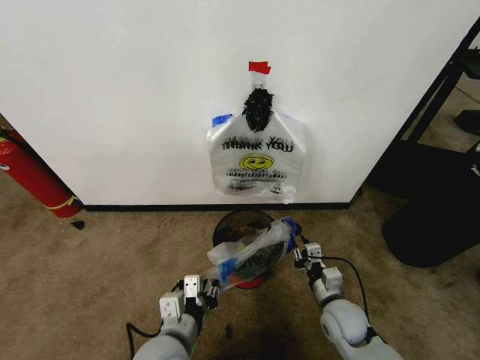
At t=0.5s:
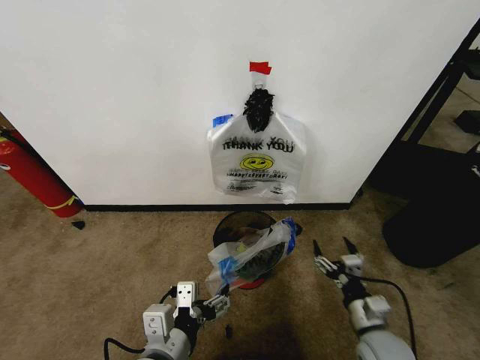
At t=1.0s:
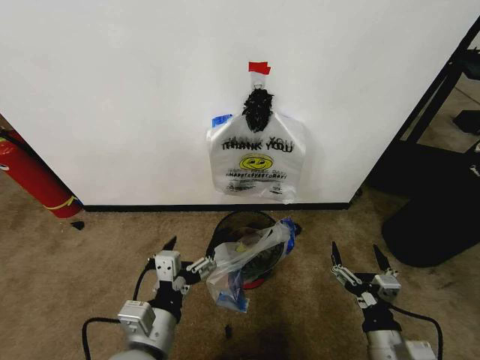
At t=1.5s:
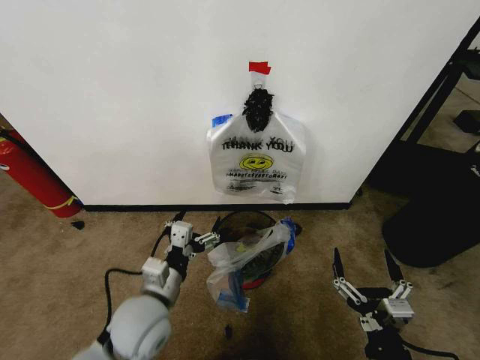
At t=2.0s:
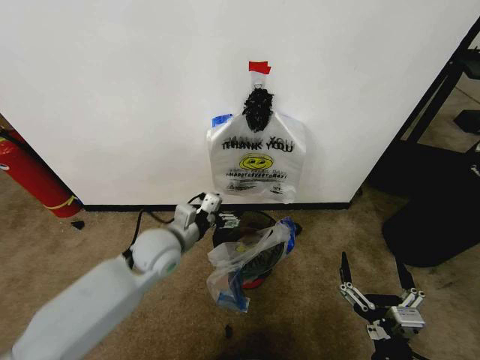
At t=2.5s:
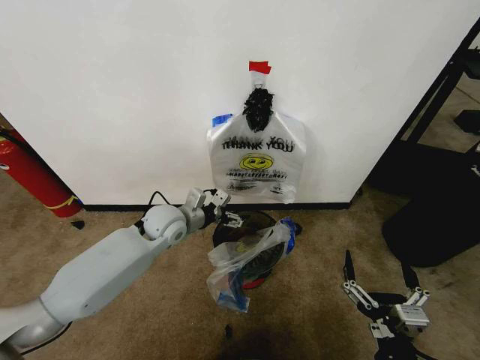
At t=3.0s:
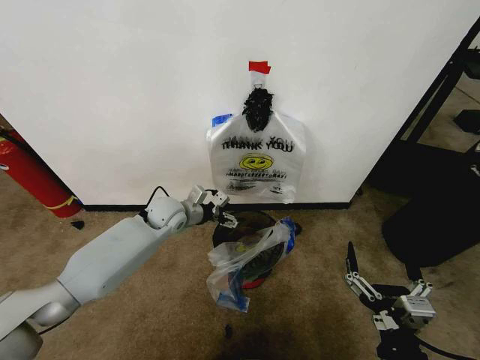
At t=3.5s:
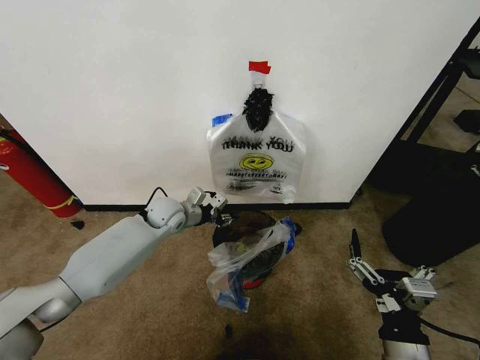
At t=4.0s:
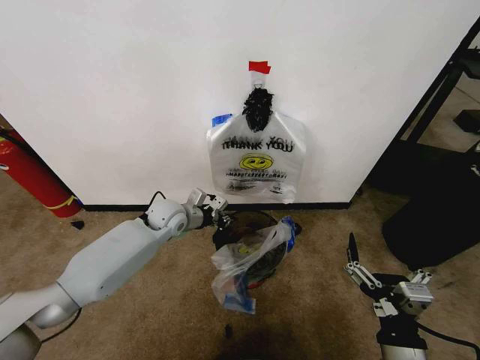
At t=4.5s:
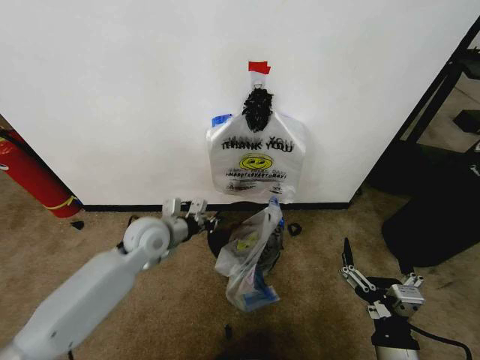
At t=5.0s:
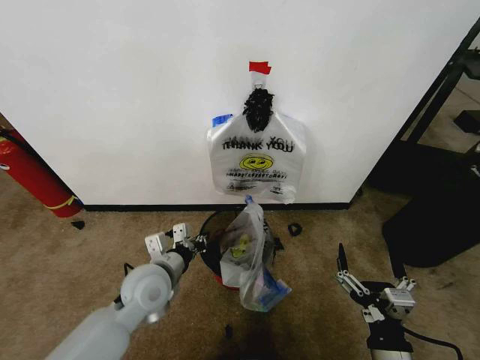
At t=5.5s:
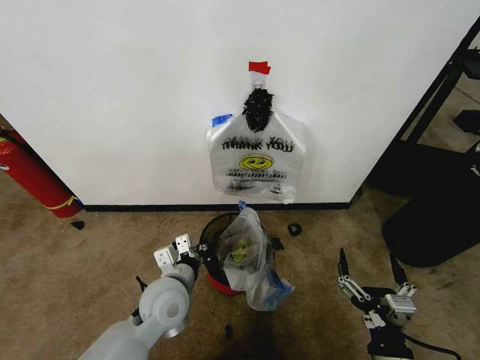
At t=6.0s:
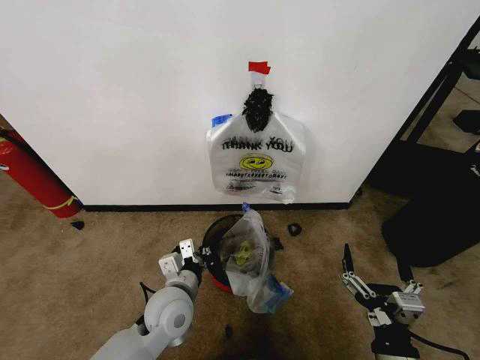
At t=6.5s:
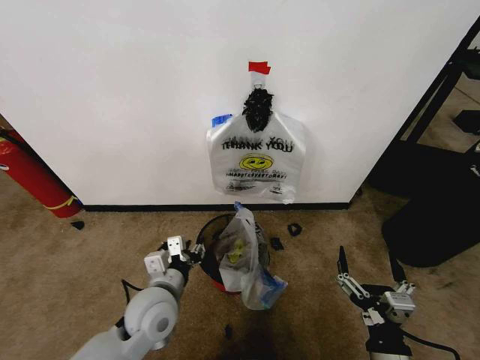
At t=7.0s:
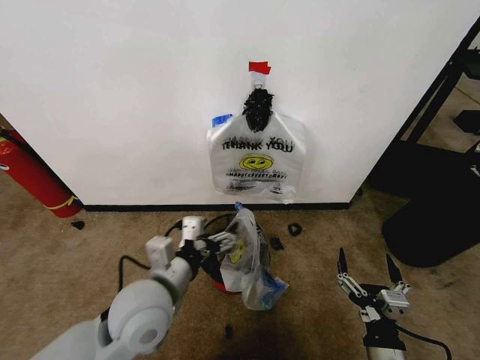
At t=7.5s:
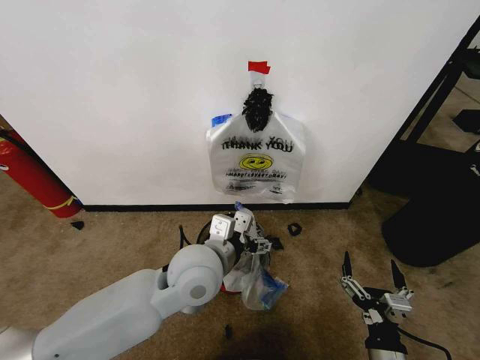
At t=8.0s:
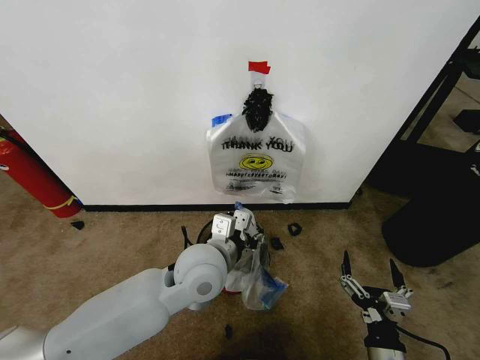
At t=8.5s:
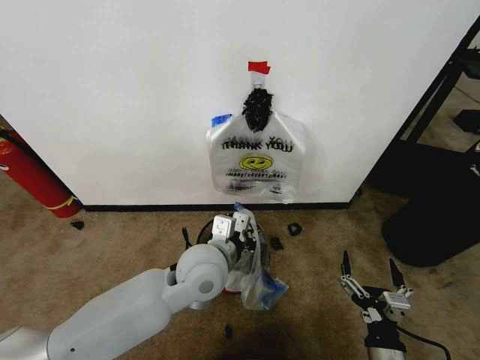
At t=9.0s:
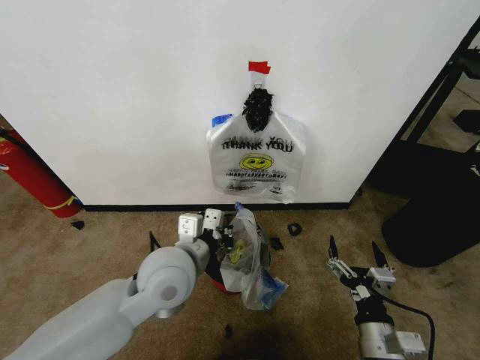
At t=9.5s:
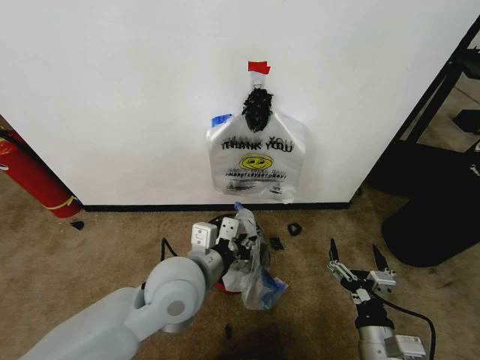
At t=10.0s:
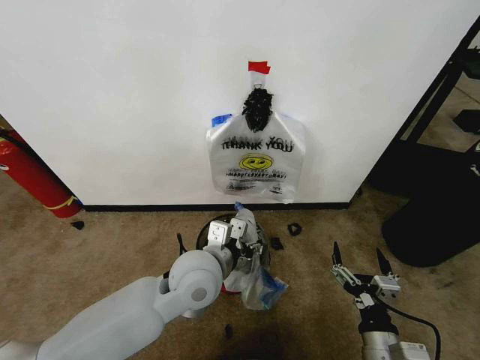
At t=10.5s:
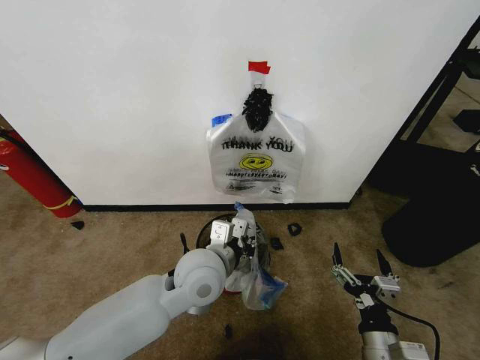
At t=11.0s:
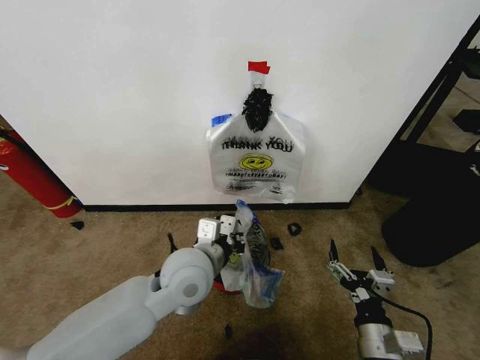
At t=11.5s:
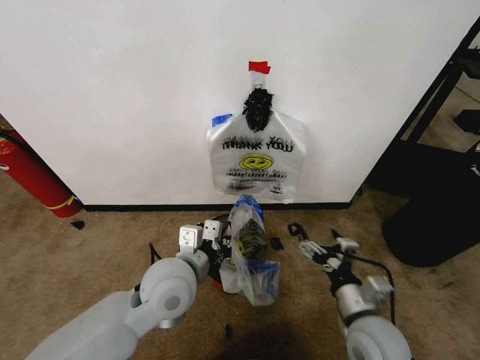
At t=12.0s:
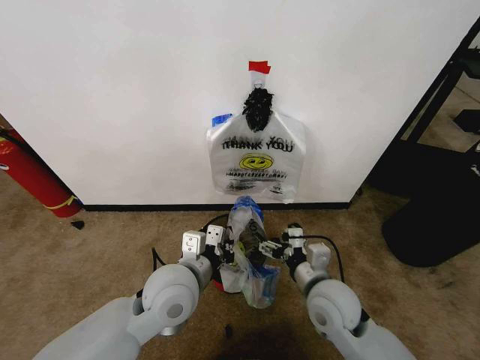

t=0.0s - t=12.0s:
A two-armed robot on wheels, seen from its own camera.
Task of the whole recording: Pick up the garbage bag from the wall and place it over the trash bin.
t=0.0s - t=2.0s: The left gripper travels forward by approximately 20 cm, and opens. Meanwhile the right gripper shifts some 20 cm backward and upward, and opens up.
t=2.0s - t=4.0s: The left gripper travels forward by some 15 cm, and closes its fingers.
t=4.0s - t=6.0s: The left gripper heads backward, covering about 20 cm.
t=6.0s - t=8.0s: The right gripper shifts roughly 5 cm downward; the left gripper goes some 15 cm upward and to the right, and opens up.
t=8.0s - t=10.0s: The left gripper closes, then reopens.
t=10.0s - t=12.0s: The right gripper travels forward and to the left by about 15 cm, while the left gripper closes up.

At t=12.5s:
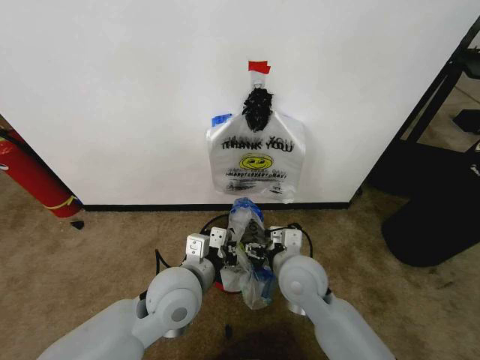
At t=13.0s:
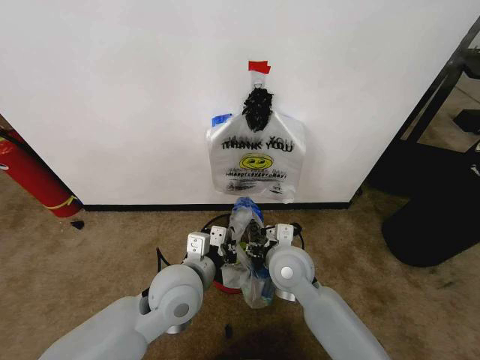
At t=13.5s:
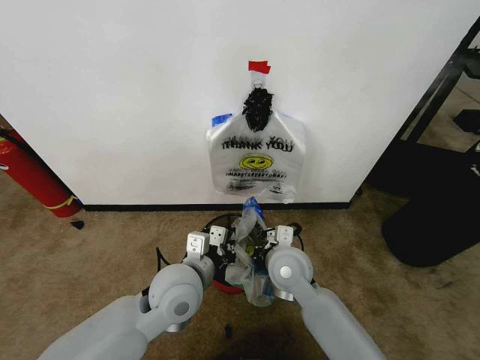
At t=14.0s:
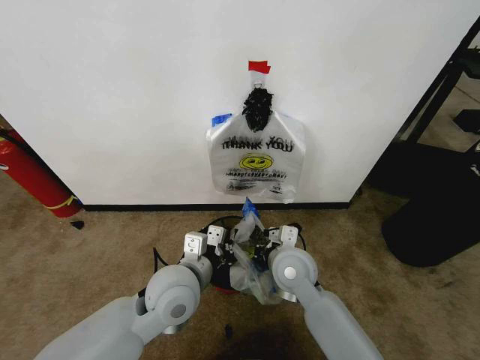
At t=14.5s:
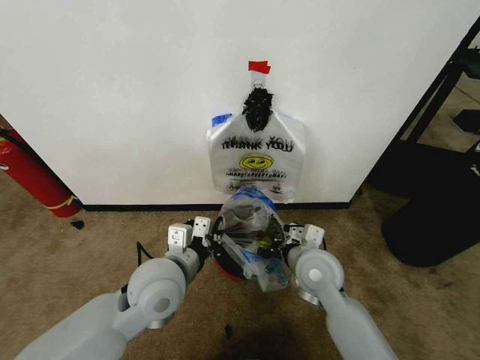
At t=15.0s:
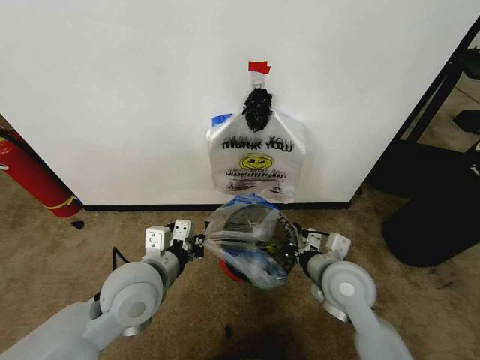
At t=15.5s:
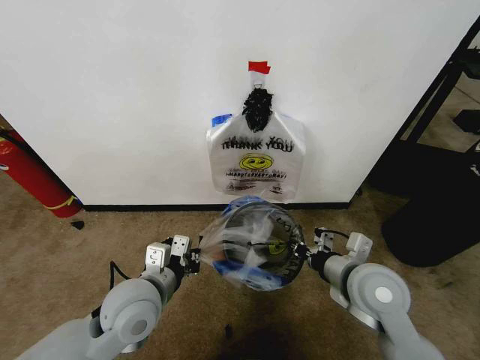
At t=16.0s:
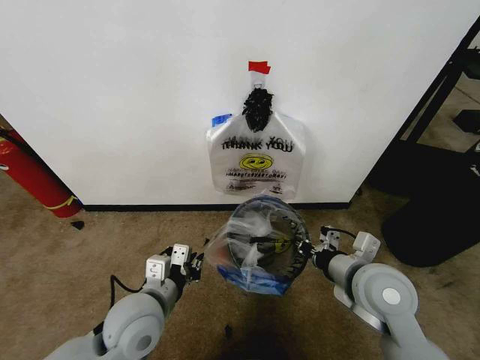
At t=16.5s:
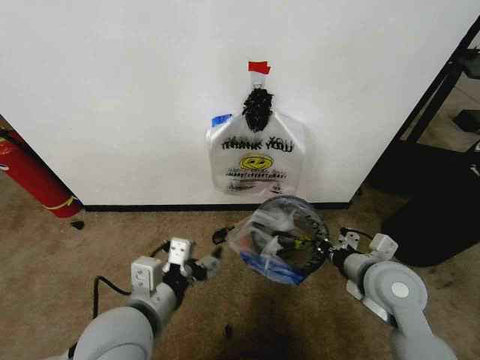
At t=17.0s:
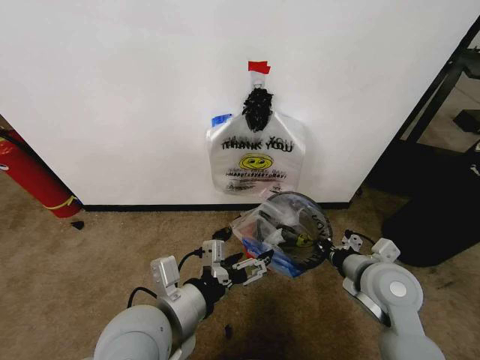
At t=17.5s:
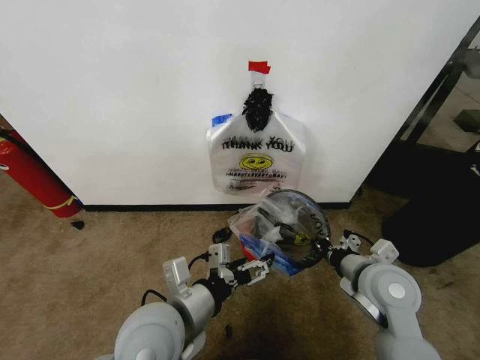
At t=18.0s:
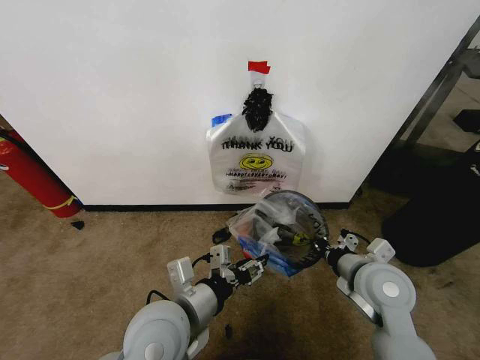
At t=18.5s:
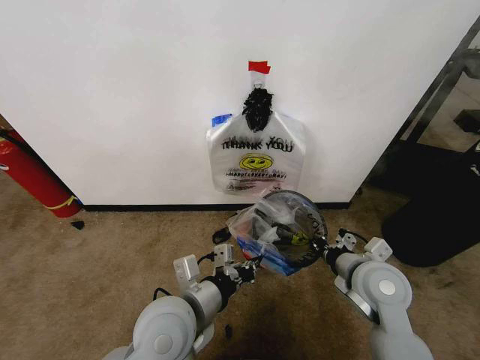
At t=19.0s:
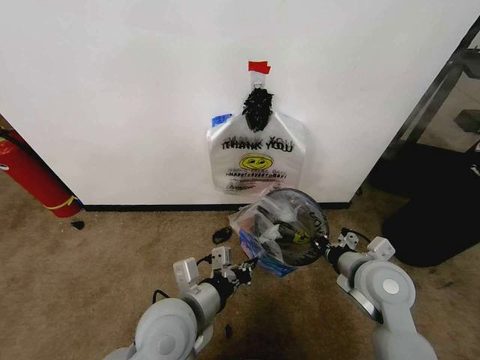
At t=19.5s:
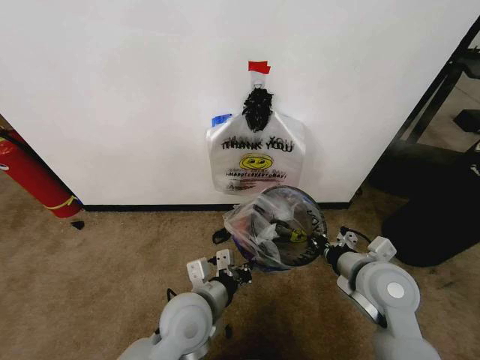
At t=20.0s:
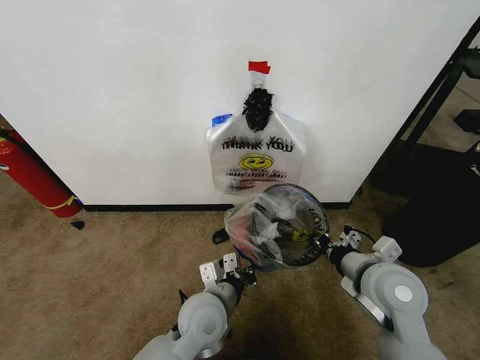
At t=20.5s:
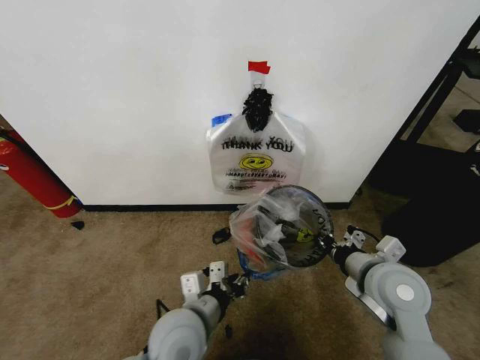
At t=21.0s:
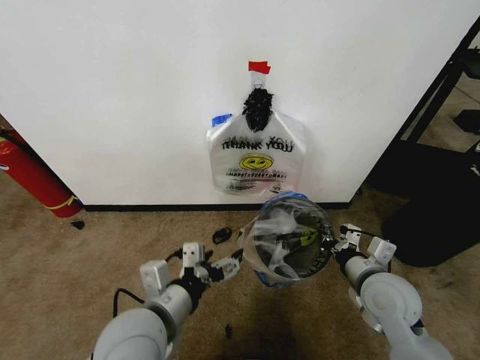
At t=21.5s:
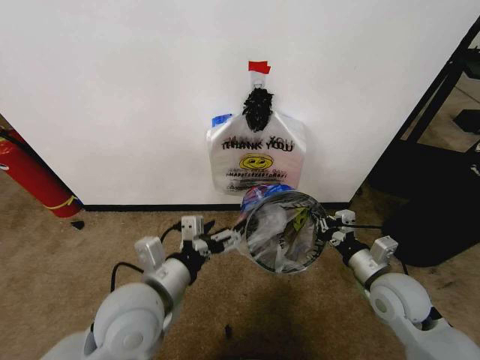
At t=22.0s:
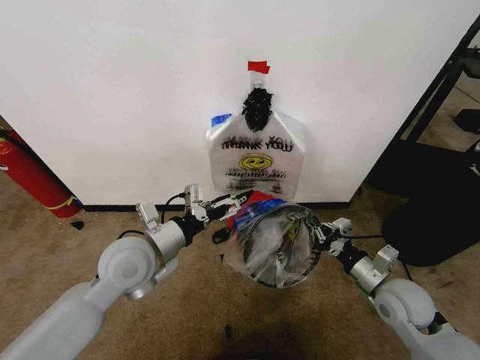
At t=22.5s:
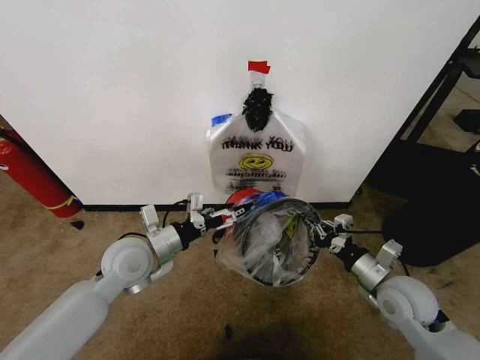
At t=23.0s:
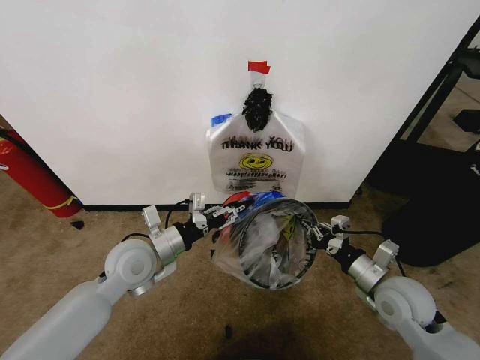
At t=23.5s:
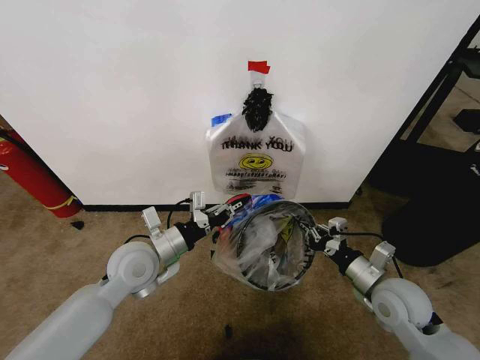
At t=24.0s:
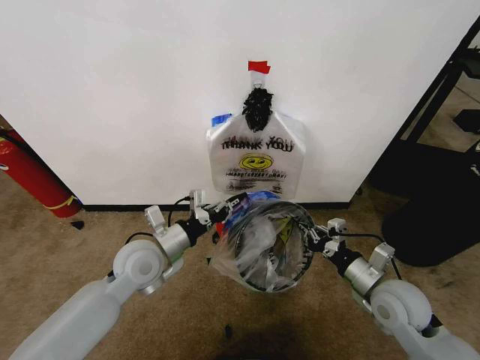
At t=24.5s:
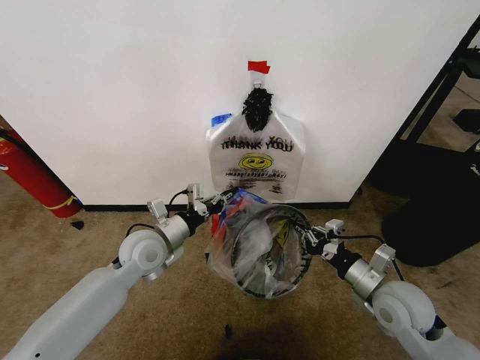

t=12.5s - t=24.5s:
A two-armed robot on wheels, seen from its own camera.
Task of the whole recording: Pick up the garbage bag from the wall and place it over the trash bin.
t=12.5s - t=14.5s: The right gripper closes.
t=14.5s - t=16.5s: The left gripper moves backward, about 10 cm, and opens its fingers; the right gripper shifts approximately 10 cm to the right.
t=16.5s - t=18.5s: The left gripper moves to the right, roughly 5 cm, and closes.
t=18.5s - t=20.5s: The left gripper is displaced downward by about 5 cm.
t=20.5s - t=22.5s: The left gripper goes approximately 15 cm forward and to the left, and opens its fingers. The right gripper goes about 10 cm downward and to the right.
t=22.5s - t=24.5s: The left gripper closes up.

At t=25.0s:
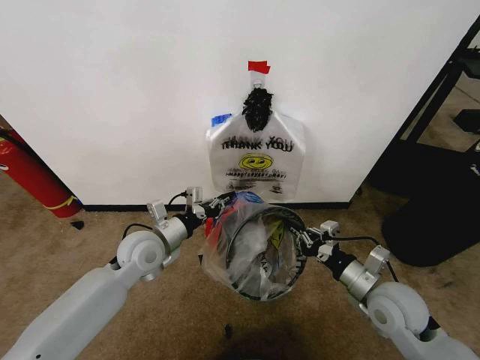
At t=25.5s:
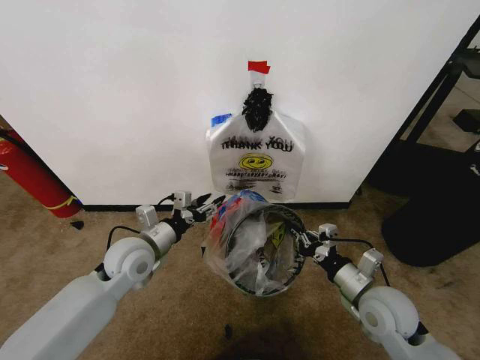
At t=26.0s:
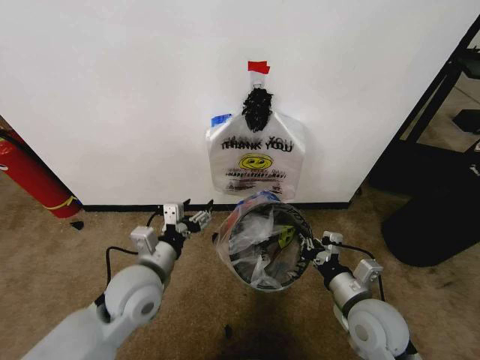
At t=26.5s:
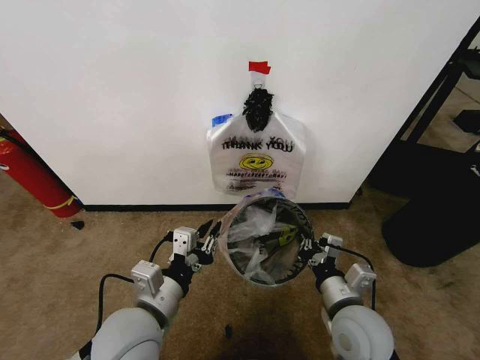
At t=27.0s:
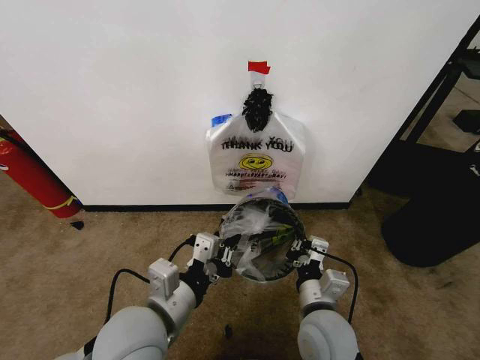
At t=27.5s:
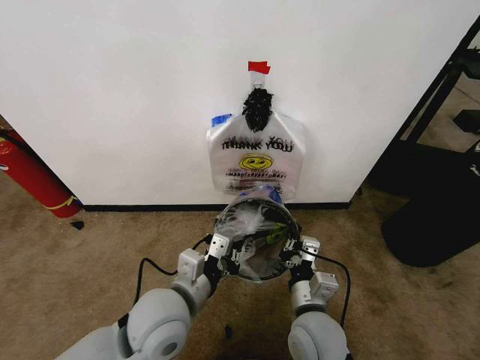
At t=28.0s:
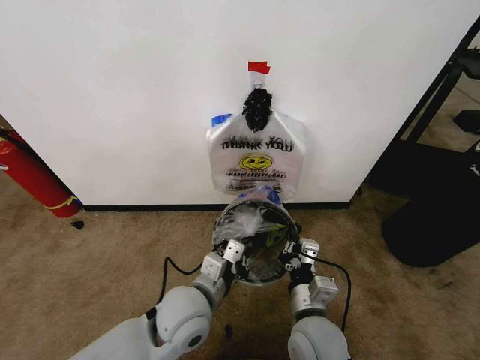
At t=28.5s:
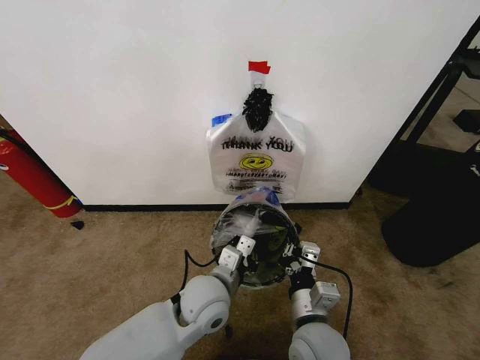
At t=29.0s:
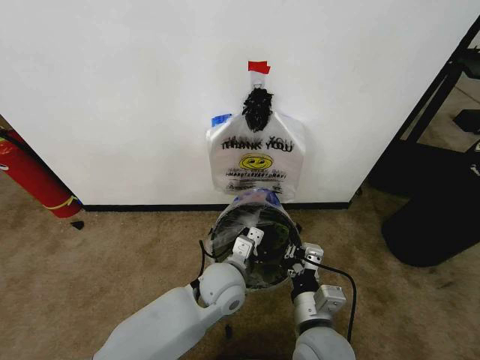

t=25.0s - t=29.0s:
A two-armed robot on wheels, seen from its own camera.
Task of the whole recording: Pick up the garbage bag from the wall and place it over the trash bin.
t=25.0s - t=27.0s: The left gripper goes about 20 cm backward, and opens, then closes again. Meanwhile the right gripper goes some 15 cm to the left.
t=27.0s - t=29.0s: The left gripper travels forward, to the right and downward by some 20 cm.
